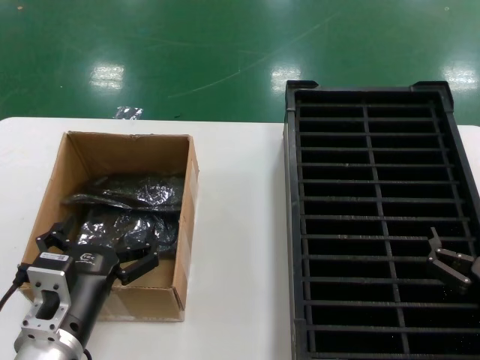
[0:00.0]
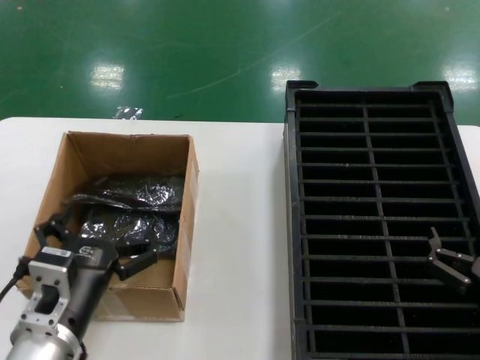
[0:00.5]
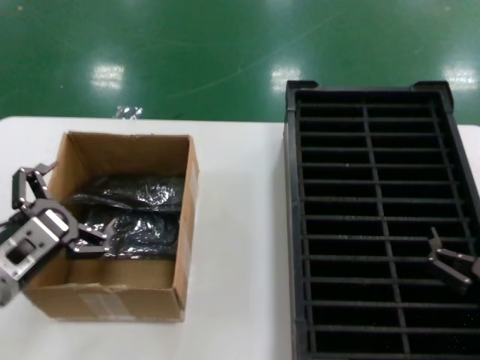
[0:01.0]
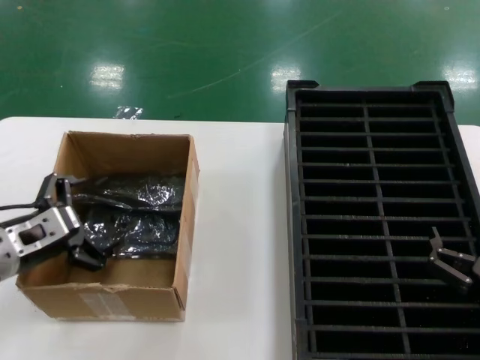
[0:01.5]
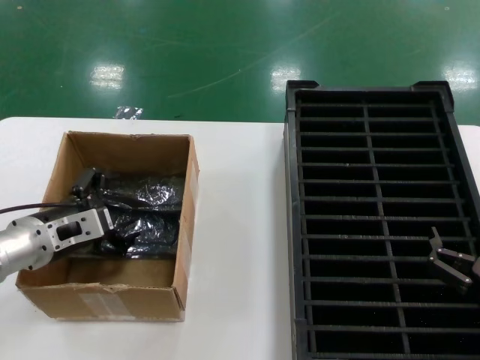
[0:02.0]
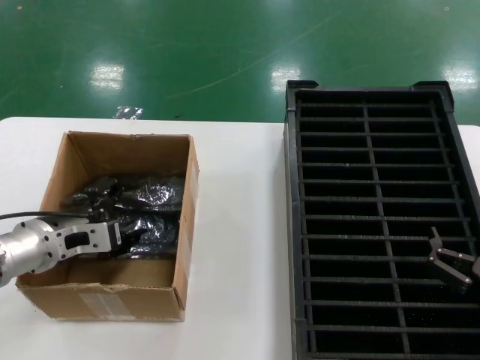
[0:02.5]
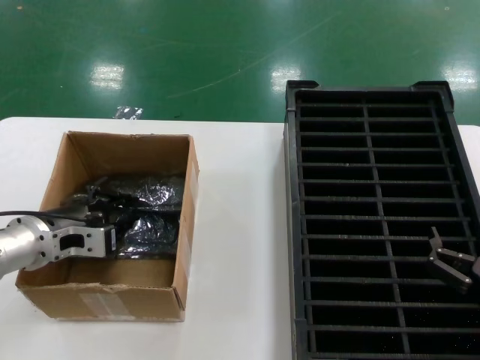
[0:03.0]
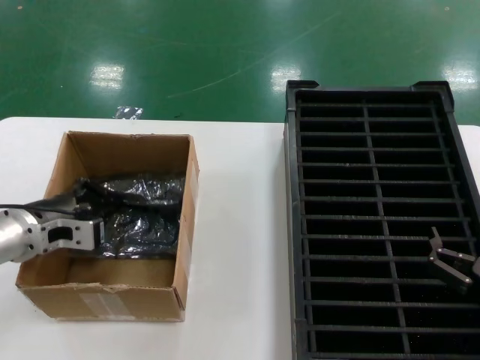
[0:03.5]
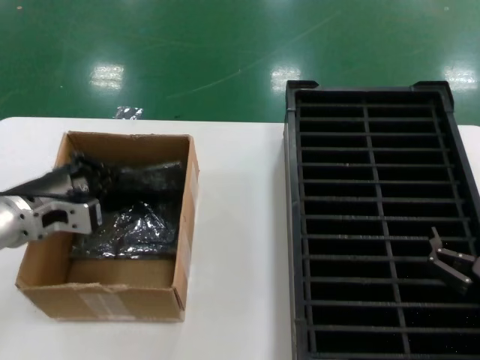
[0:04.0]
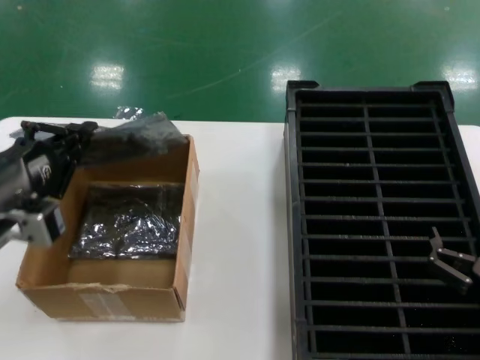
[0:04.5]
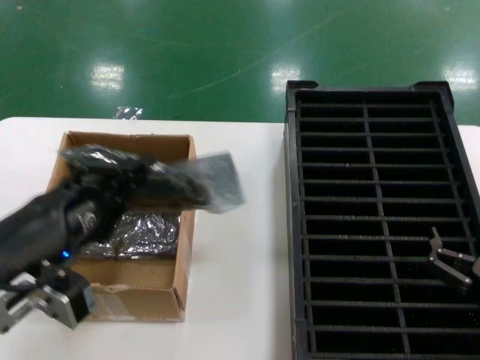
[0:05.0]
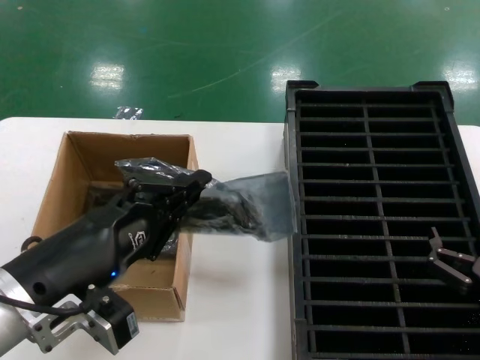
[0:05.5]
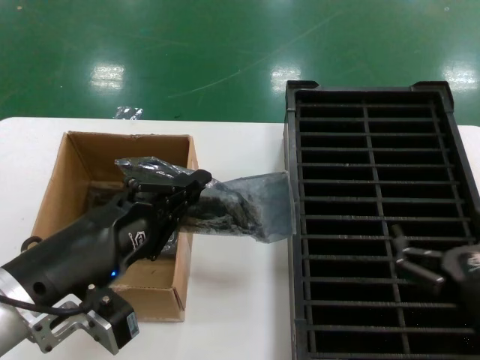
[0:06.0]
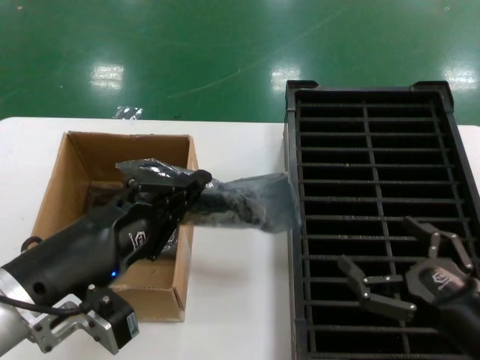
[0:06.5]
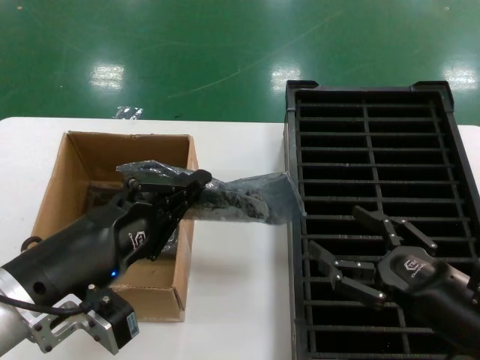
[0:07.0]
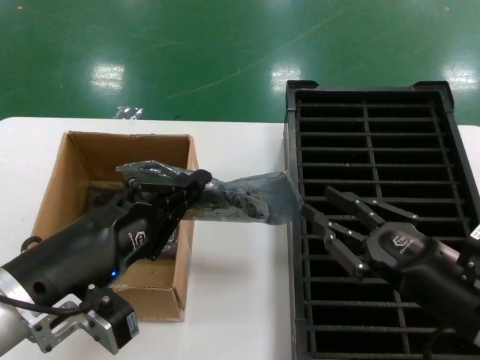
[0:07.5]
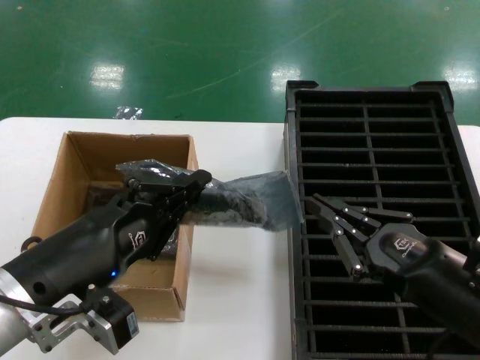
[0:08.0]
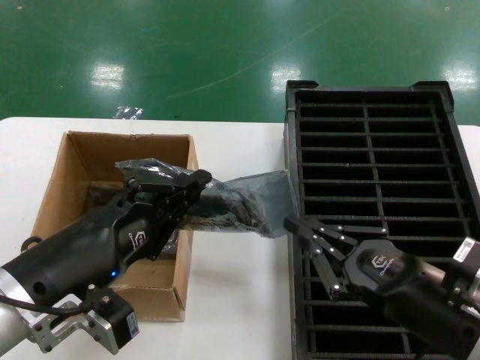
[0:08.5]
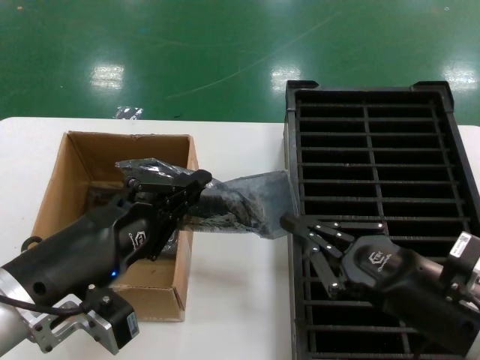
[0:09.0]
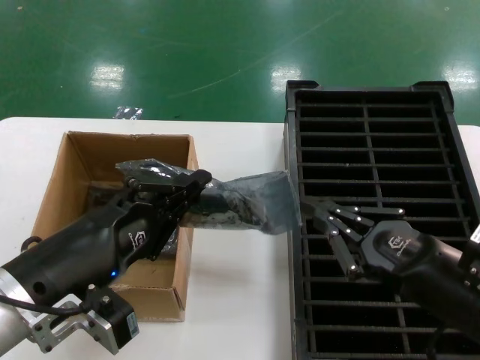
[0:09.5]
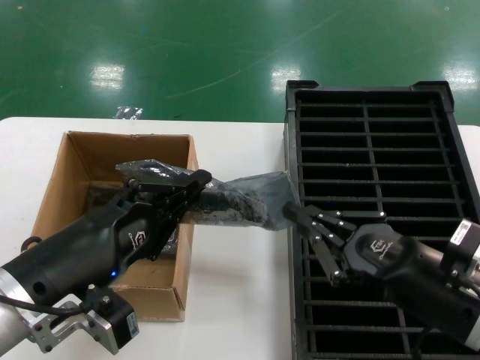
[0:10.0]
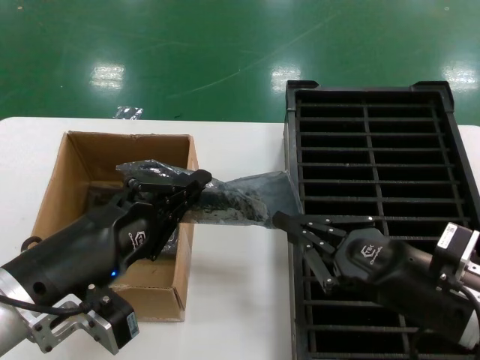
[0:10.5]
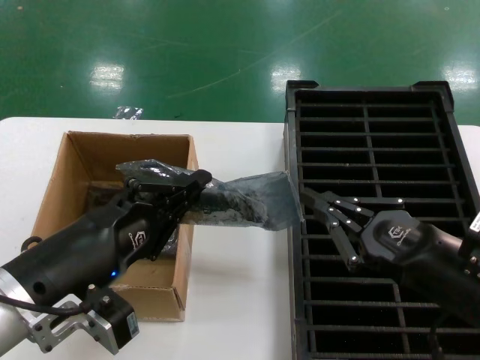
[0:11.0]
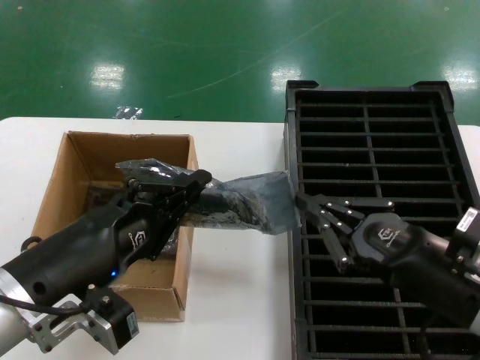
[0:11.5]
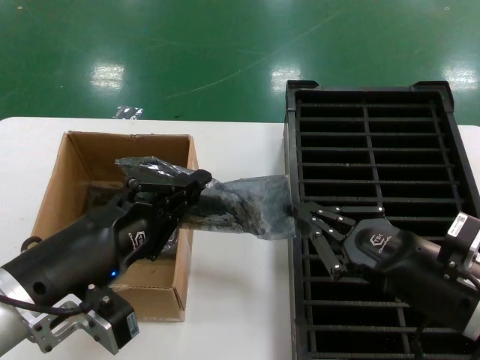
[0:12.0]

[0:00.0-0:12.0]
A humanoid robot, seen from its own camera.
Task of the whole recording: take out graphics card from box remove packaging put into black container.
Step, 0:00.0 to 0:03.0: Grasp the bag.
Step, 0:04.0 to 0:05.5: Lift the bag.
0:00.0 to 0:02.0: The left hand heads forward and to the left, covering some 20 cm.
0:04.0 to 0:06.0: The left hand heads backward and to the right, covering some 20 cm.
0:06.0 to 0:08.0: The right hand shifts about 5 cm upward.
0:08.0 to 0:12.0: The hands make only small movements.

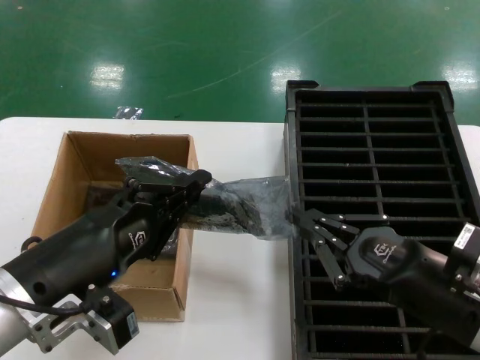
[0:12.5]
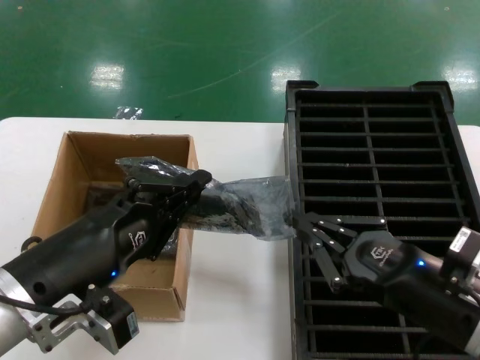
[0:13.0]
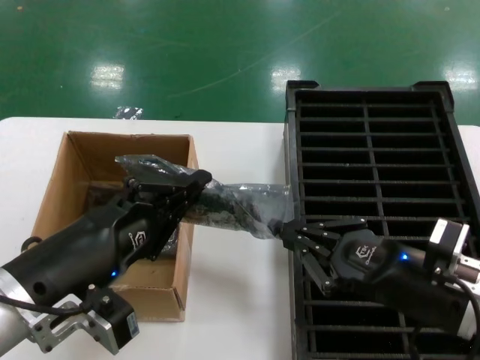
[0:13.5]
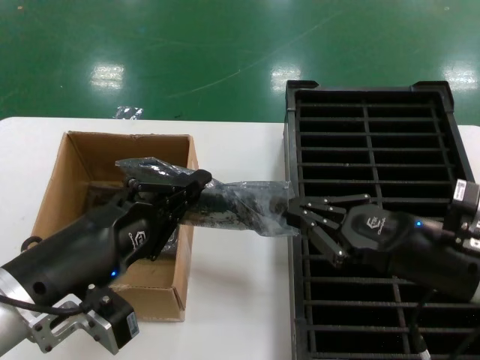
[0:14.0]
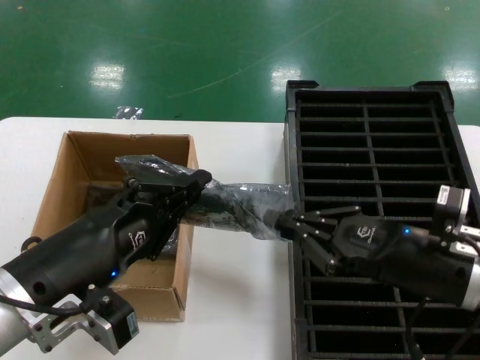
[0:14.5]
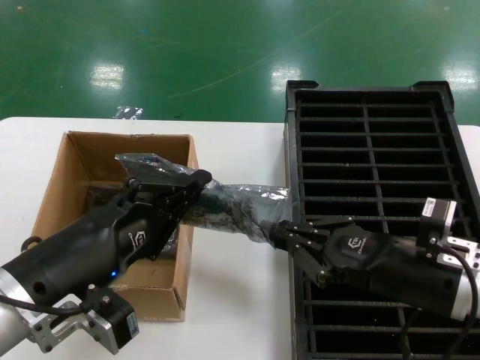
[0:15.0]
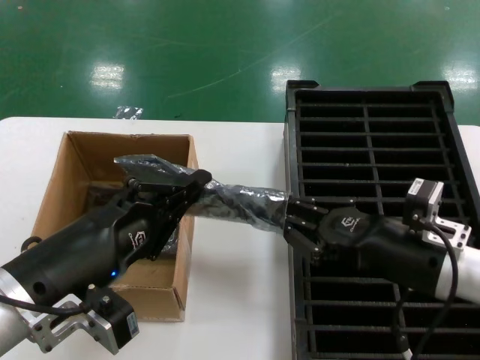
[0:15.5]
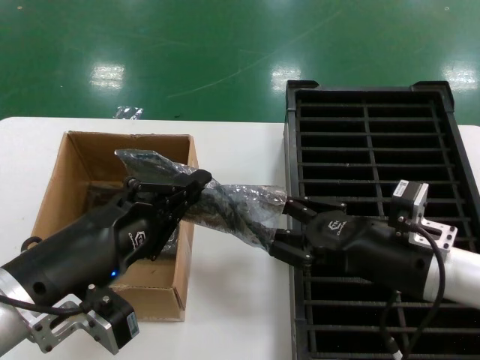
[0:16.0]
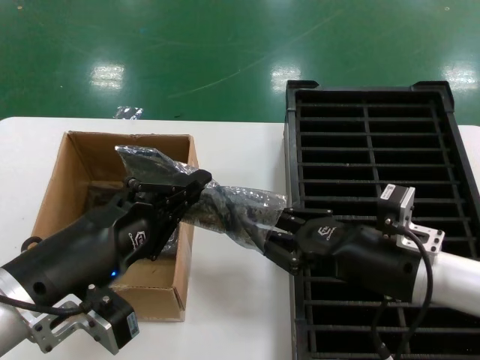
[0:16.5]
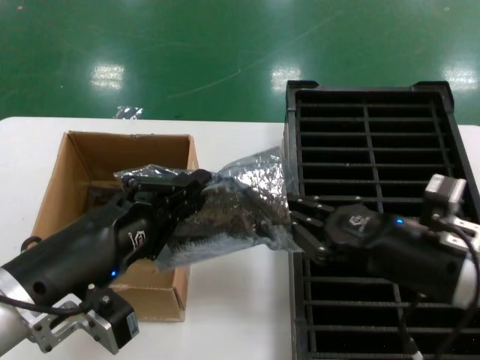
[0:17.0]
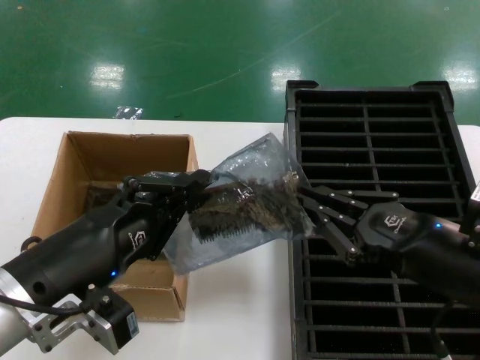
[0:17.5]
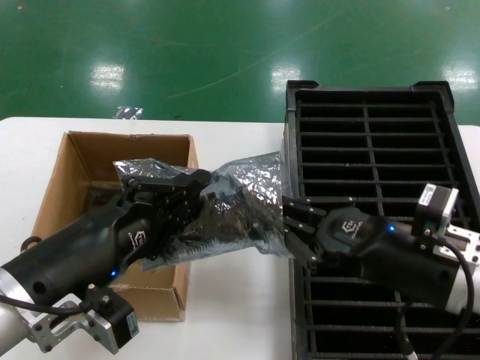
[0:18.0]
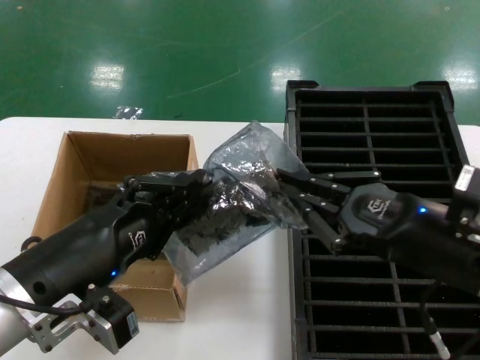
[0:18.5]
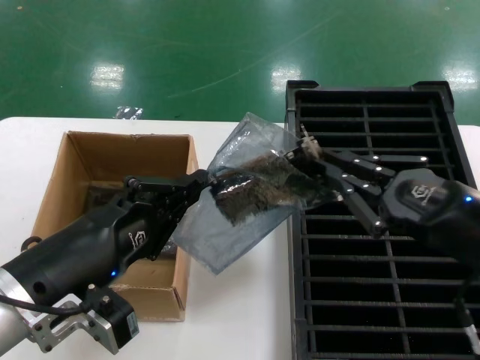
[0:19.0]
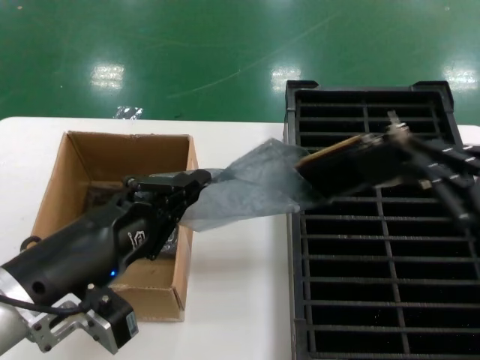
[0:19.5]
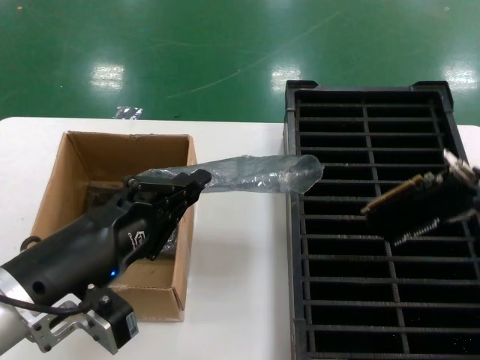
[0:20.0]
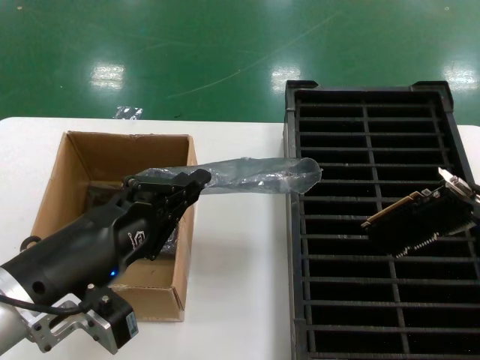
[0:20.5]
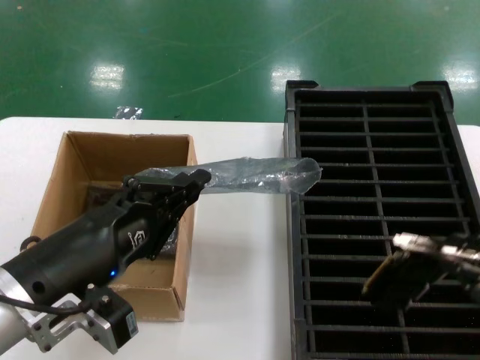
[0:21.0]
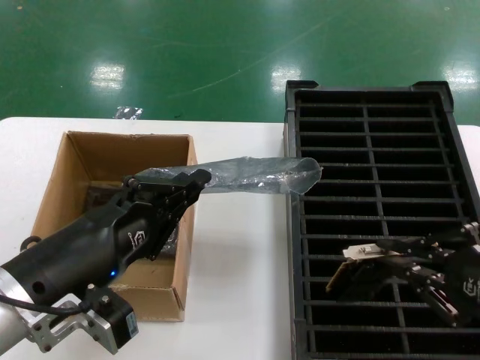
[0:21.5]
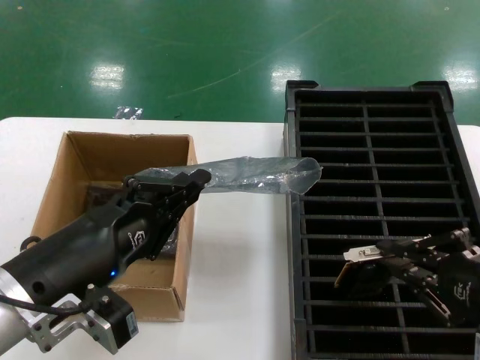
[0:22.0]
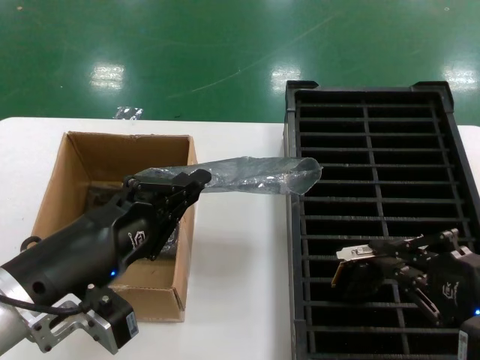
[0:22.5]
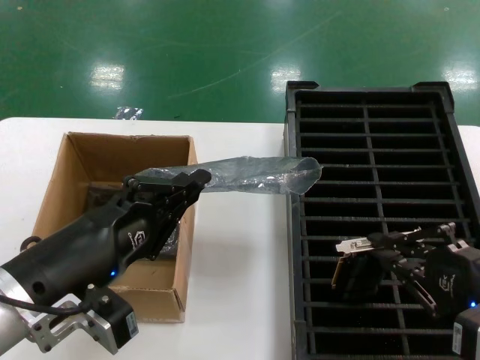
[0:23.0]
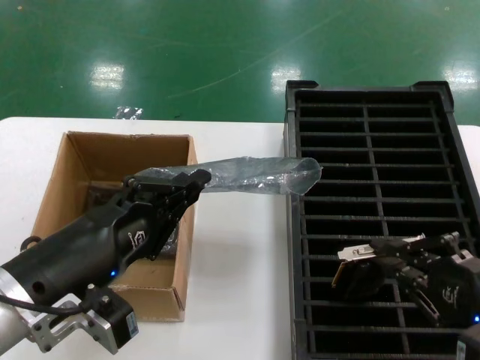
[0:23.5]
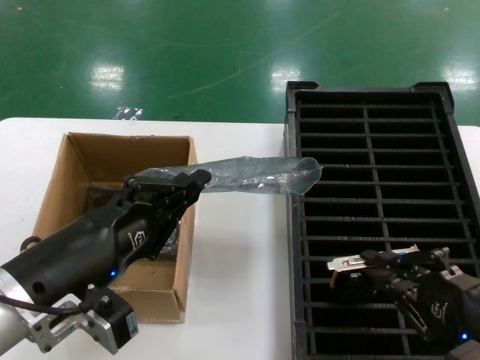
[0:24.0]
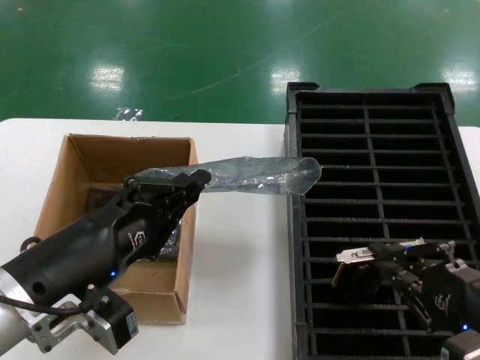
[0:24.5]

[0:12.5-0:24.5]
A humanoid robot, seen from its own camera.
Task of the whole recording: take out graphics card from box remove packaging put into black container.
Step, 0:12.5 to 0:19.5: Take out the hard disk of the bag.
0:12.5 to 0:14.5: The right hand shifts approximately 5 cm forward.
0:14.5 to 0:16.5: The right hand heads to the left, covering roughly 5 cm.
0:16.5 to 0:18.5: The right hand travels upward by about 5 cm.
0:18.5 to 0:20.5: The right hand shifts roughly 20 cm to the right, backward and upward.
0:20.5 to 0:22.5: The right hand moves to the left, approximately 10 cm.
0:22.5 to 0:24.5: The hands move only a little.

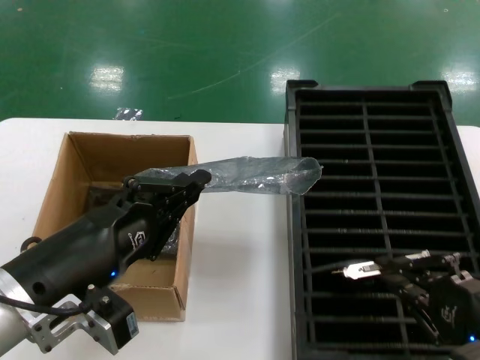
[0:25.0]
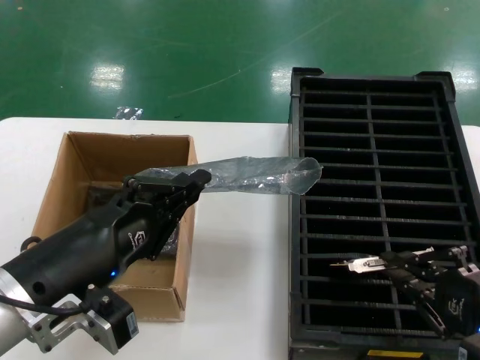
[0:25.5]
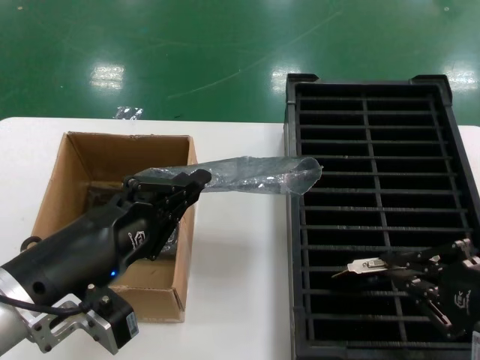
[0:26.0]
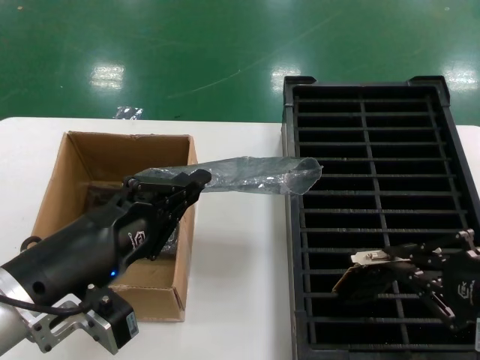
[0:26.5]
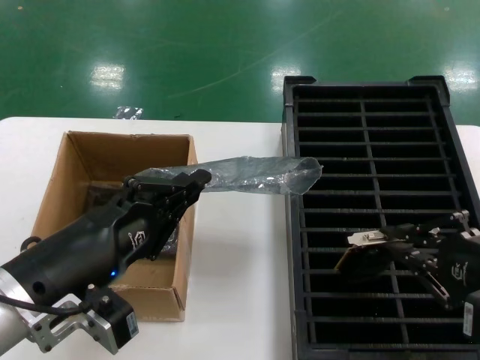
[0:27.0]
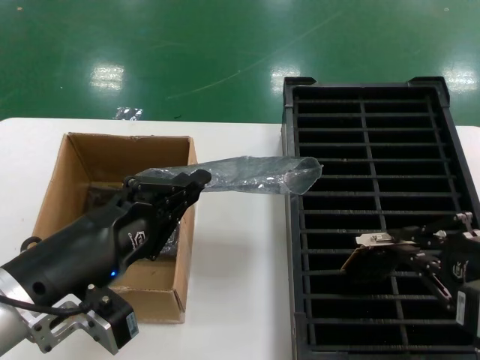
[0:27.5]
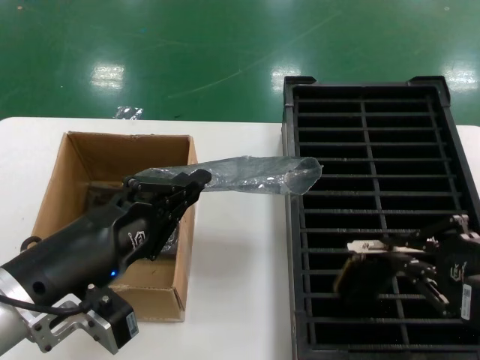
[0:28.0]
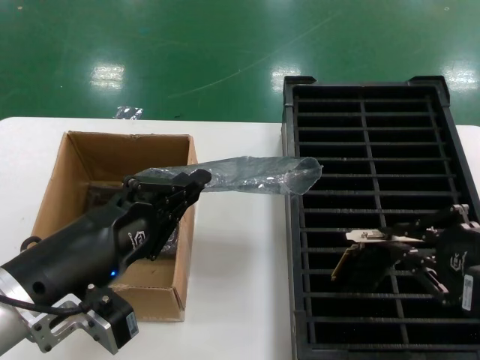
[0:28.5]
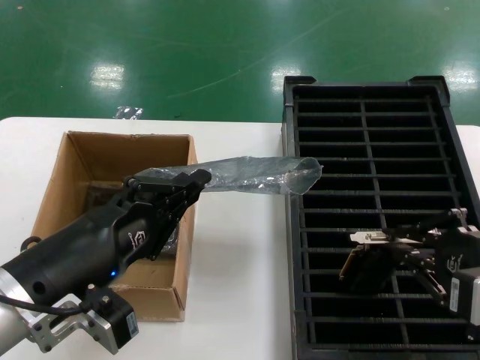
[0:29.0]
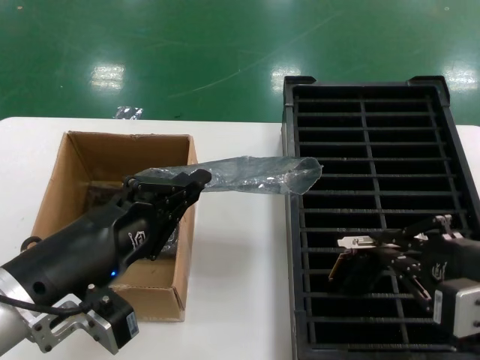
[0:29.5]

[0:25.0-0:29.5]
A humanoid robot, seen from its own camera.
Task of the whole recording: take out graphics card from box remove packaging put into black container.
0:25.0 to 0:27.0: The right hand goes roughly 5 cm upward.
0:27.0 to 0:29.5: The hands stay close to where they were, moving slightly.
